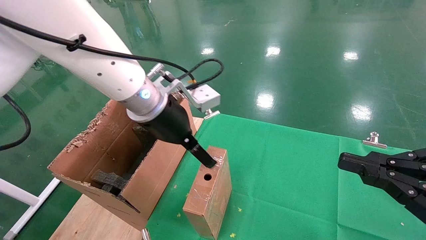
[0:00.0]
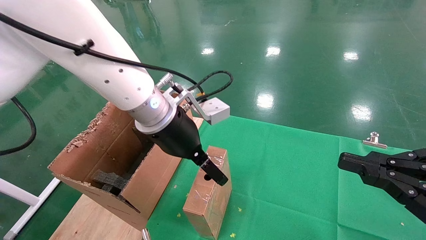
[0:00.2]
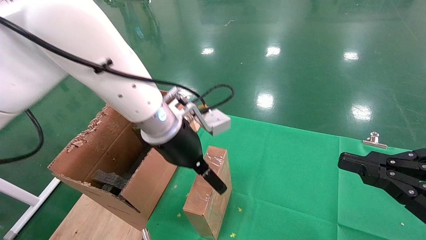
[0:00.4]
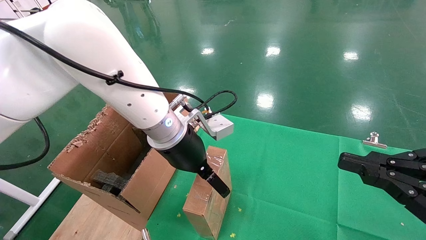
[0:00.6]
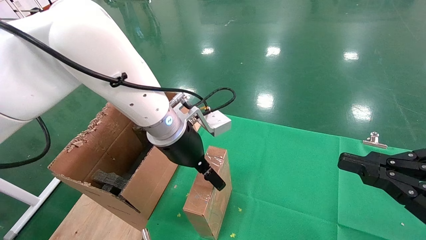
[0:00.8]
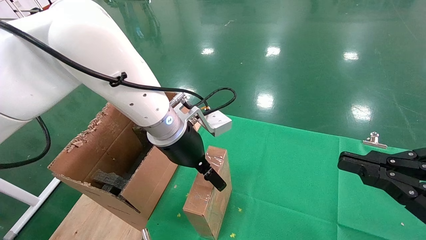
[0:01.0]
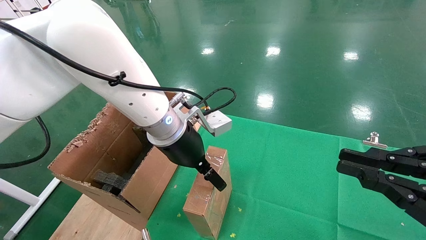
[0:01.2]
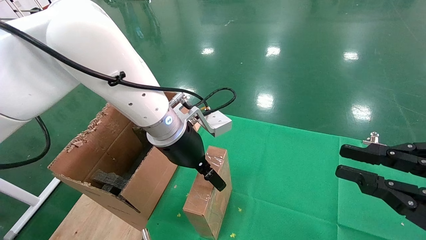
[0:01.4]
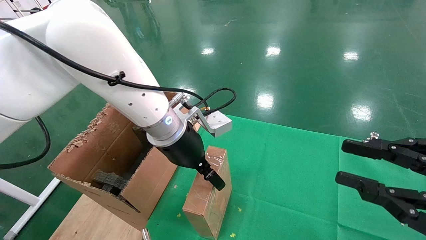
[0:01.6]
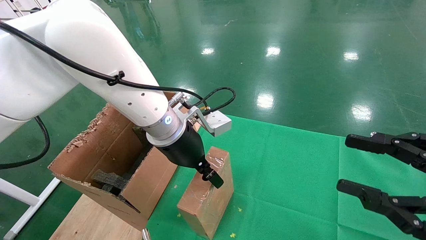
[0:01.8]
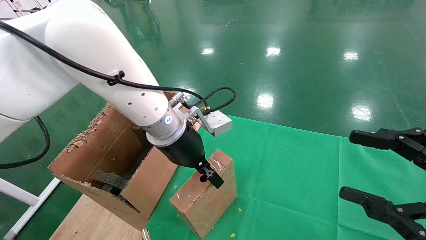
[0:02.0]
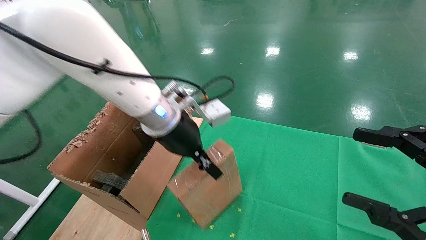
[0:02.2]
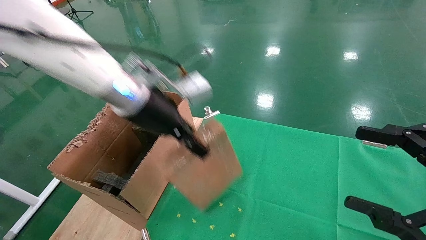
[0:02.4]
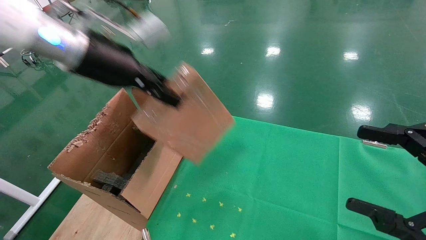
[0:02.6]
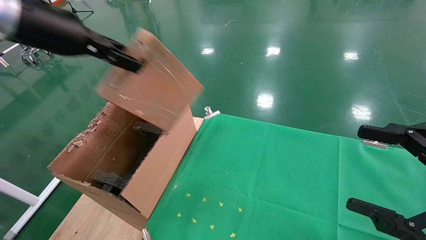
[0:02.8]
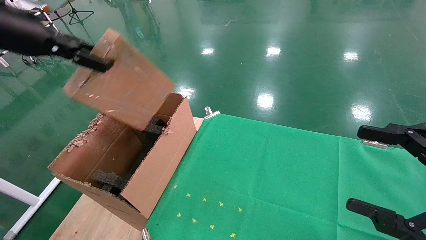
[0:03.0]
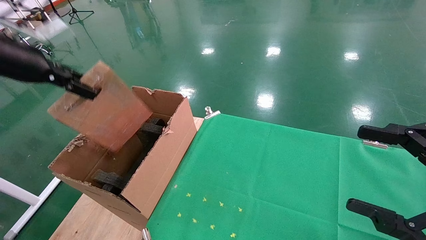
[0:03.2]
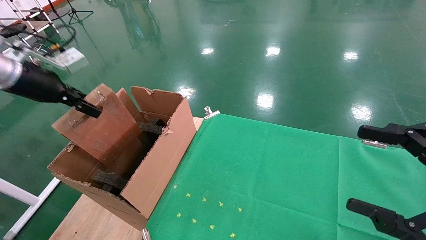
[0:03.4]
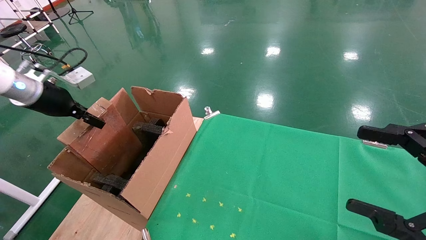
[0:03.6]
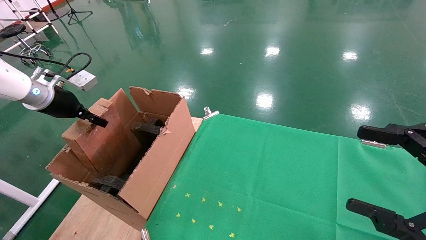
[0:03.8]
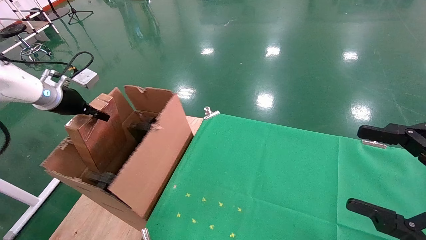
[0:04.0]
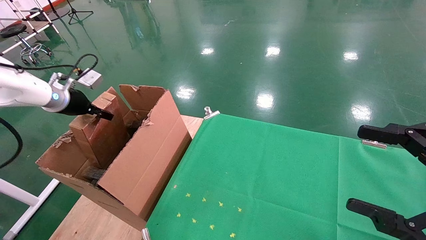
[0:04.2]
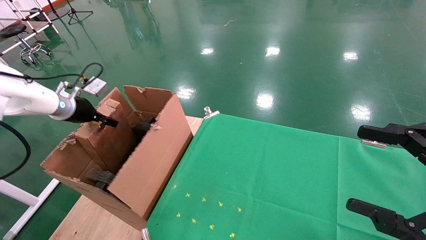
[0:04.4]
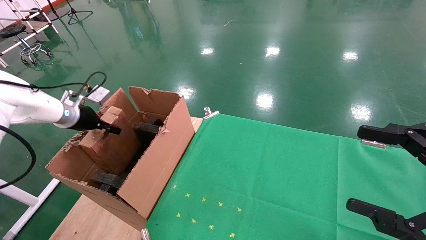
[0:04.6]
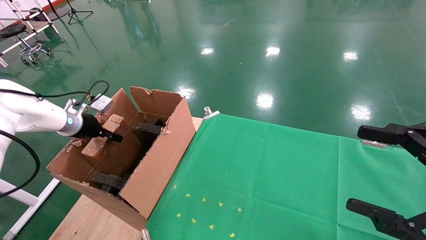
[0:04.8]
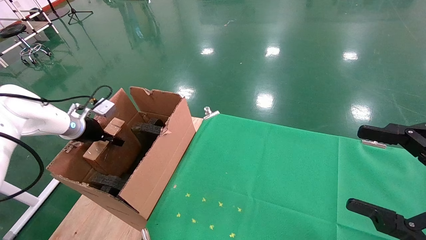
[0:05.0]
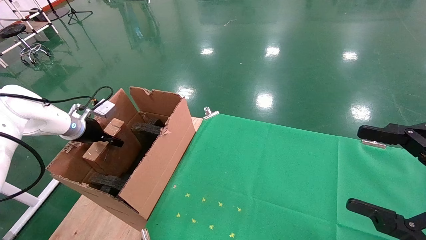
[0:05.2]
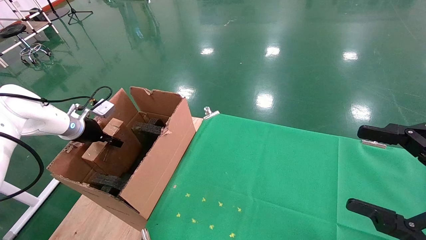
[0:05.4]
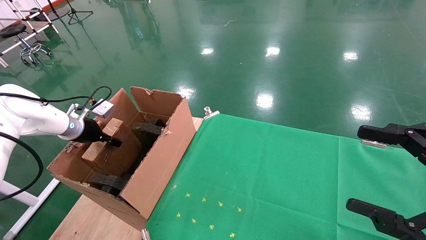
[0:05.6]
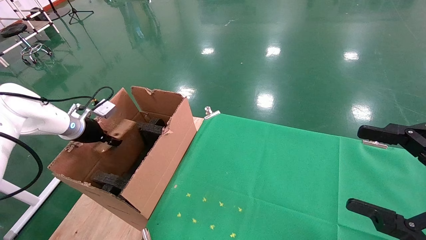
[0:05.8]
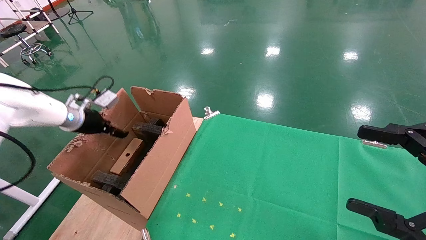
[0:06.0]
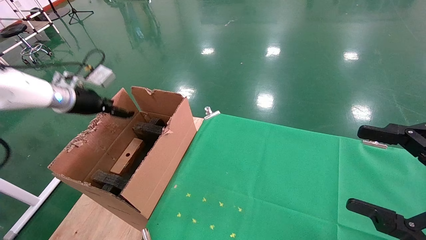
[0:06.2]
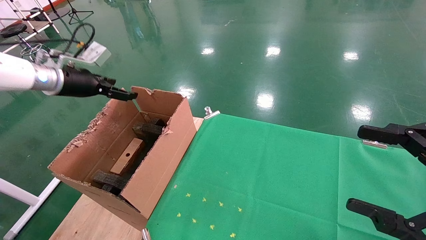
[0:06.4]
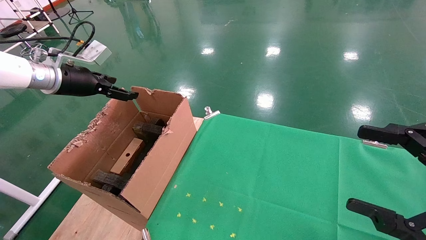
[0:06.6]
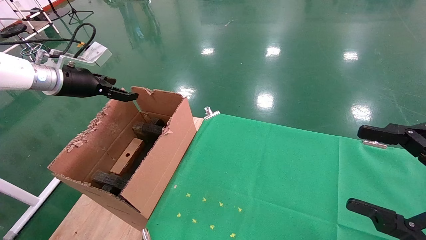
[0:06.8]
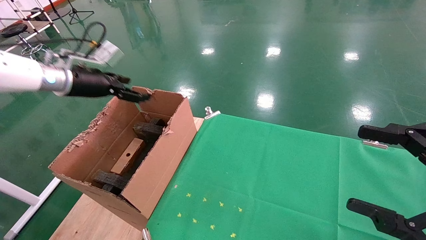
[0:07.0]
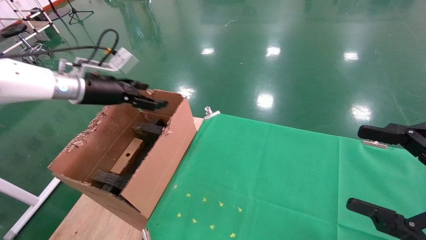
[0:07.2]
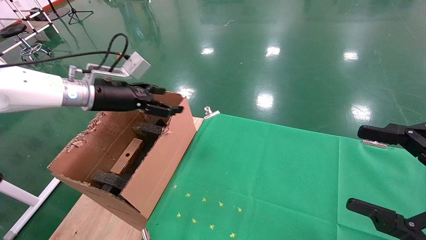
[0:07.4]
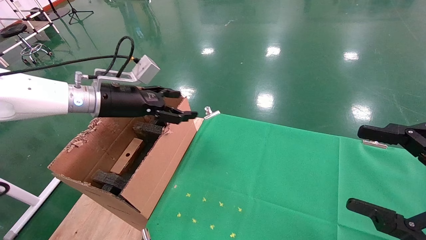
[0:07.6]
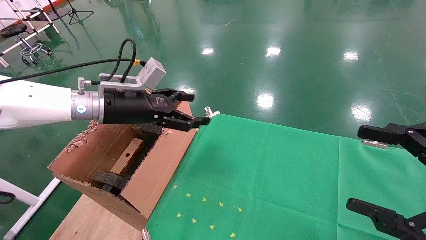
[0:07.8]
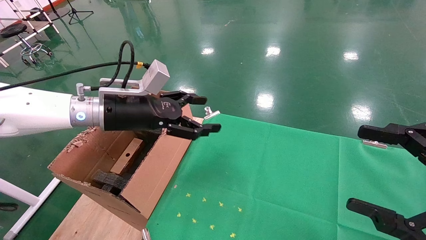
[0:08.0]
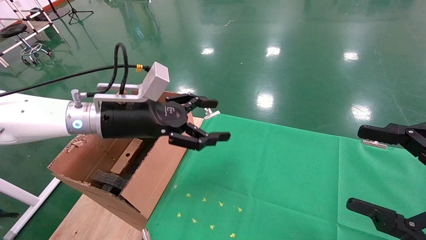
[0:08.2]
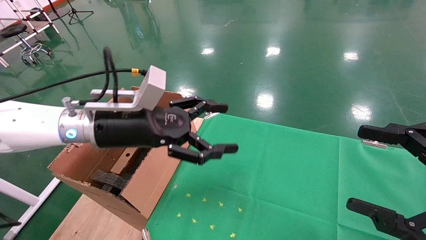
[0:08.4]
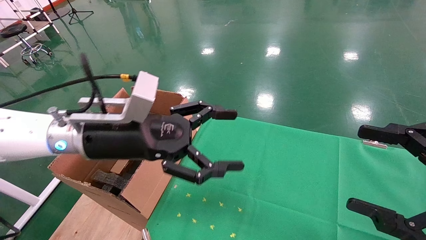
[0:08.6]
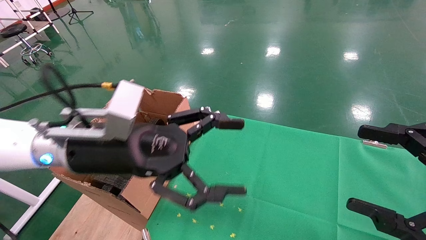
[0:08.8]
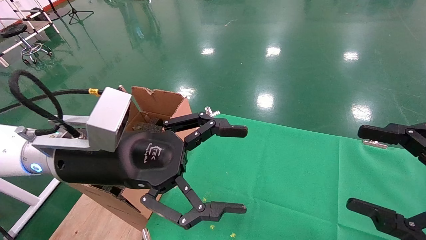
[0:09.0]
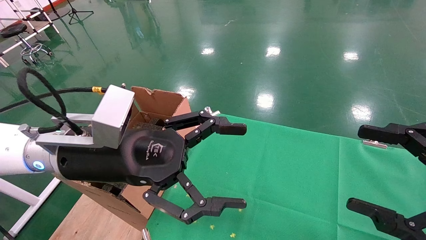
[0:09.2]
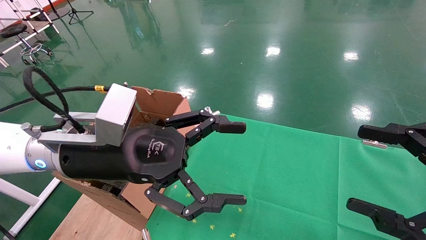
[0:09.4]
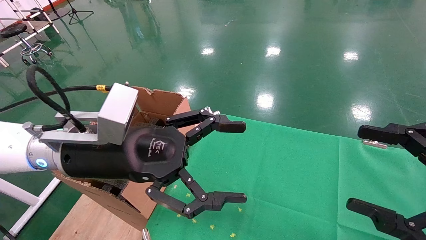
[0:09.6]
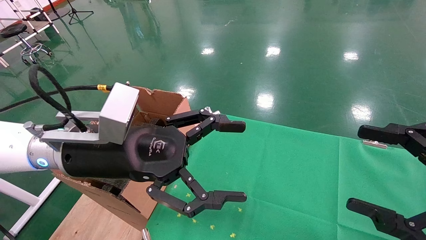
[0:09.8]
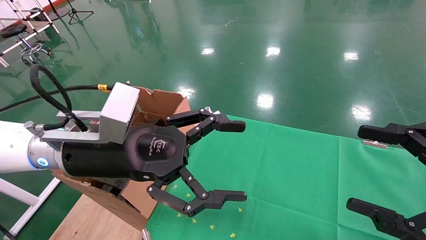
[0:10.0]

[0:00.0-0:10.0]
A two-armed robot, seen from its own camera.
Task of the whole recording: using a robotic arm to pick up a cardboard box and palace it the carton.
Step, 0:00.0 to 0:02.0: Pick up the mouse and the power cord paper box.
Step, 0:02.2 to 0:06.2: Place the mouse and the power cord paper box into the container.
0:01.4 to 0:02.8: The left gripper is displaced to the left and upward by roughly 25 cm, and closes up, while the right gripper opens up.
0:02.8 to 0:04.2: The left gripper is displaced downward, to the left and forward by some 25 cm.
0:04.2 to 0:05.8: The left gripper is displaced downward by approximately 5 cm.
0:05.8 to 0:07.2: The left gripper travels upward and to the right by about 15 cm, and opens its fingers.
0:07.2 to 0:08.6: The left gripper is displaced to the right and backward by approximately 20 cm.
0:08.6 to 0:10.0: The grippers make only small movements.

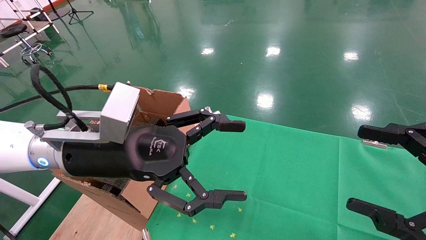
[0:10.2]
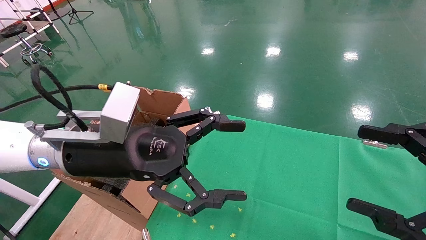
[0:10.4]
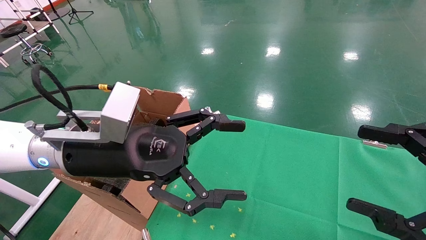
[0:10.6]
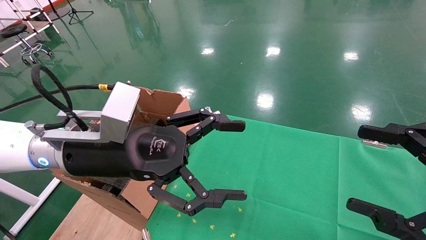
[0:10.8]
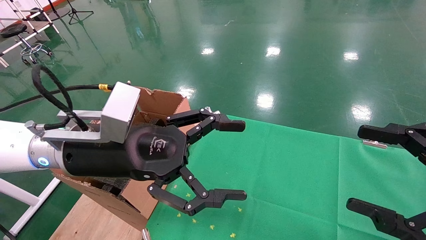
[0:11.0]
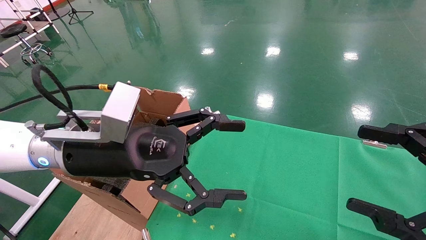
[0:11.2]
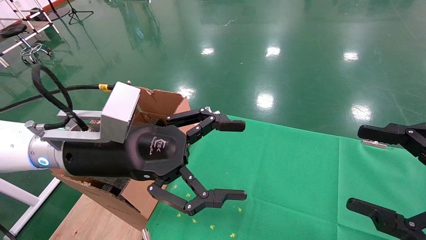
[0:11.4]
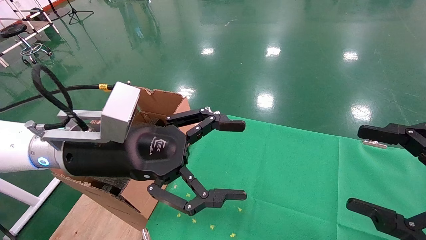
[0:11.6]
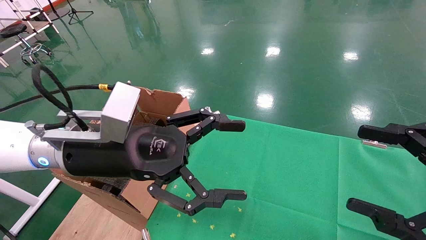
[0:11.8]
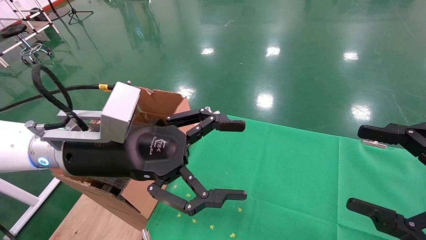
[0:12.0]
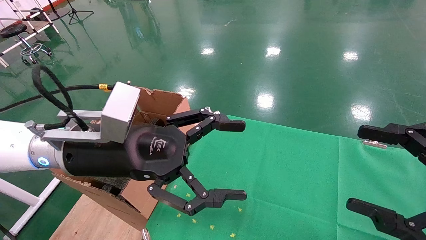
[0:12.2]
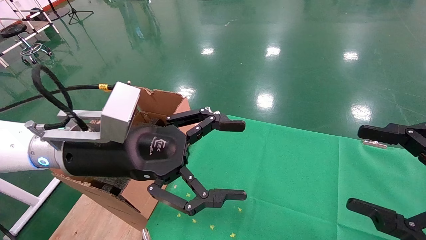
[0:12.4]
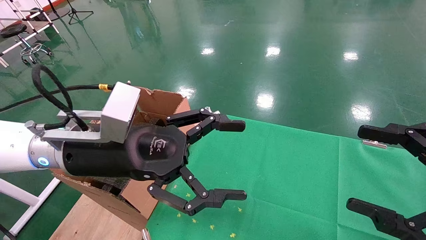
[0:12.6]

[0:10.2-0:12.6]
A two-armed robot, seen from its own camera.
Task of the whole recording: using a robotic arm to pick up a cardboard box and palace it the carton.
0:10.2 to 0:12.6: Neither gripper changes place.
